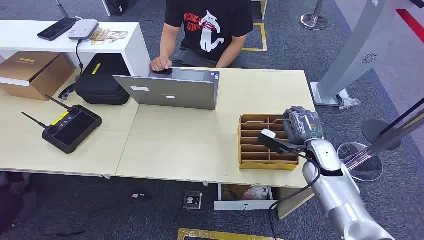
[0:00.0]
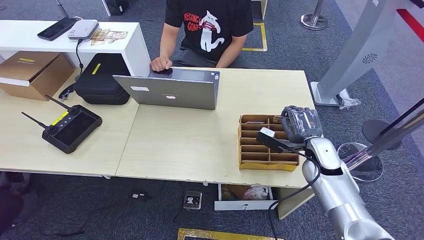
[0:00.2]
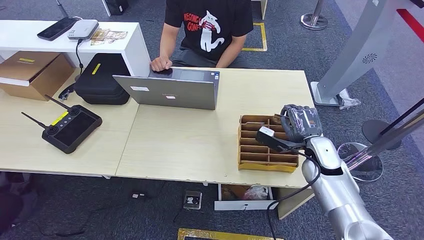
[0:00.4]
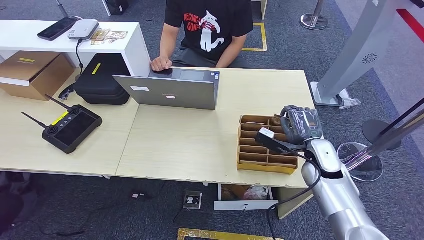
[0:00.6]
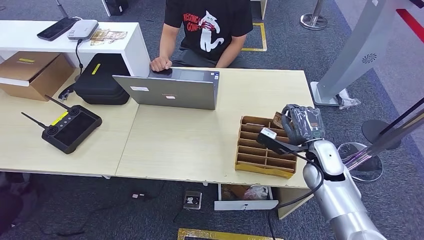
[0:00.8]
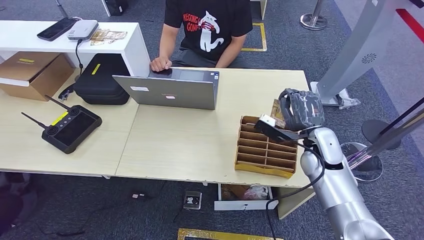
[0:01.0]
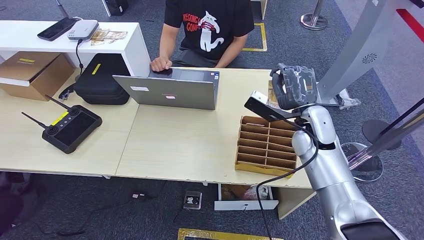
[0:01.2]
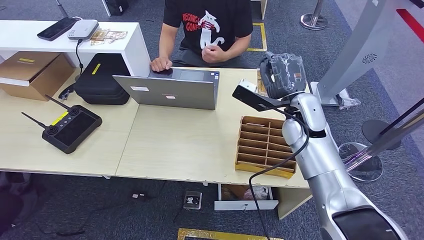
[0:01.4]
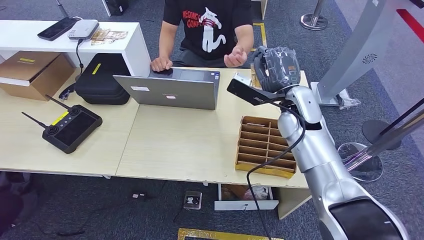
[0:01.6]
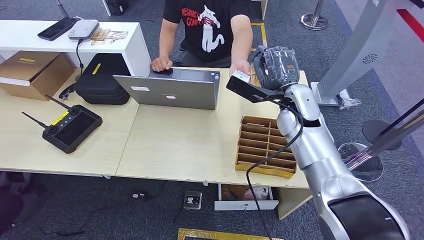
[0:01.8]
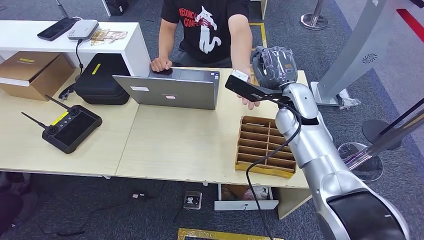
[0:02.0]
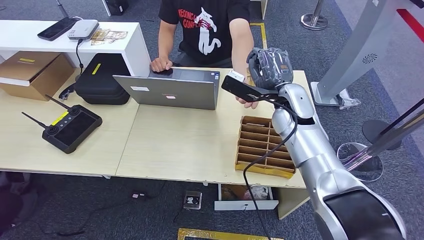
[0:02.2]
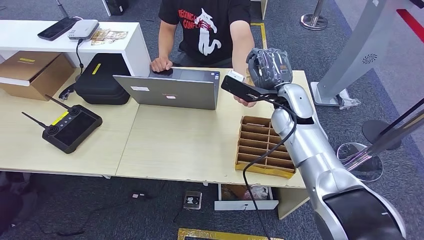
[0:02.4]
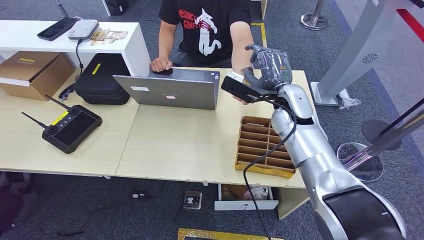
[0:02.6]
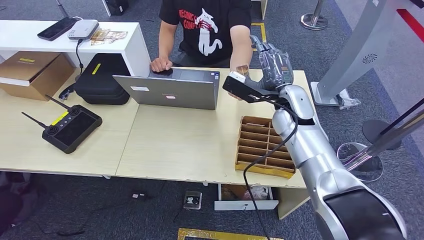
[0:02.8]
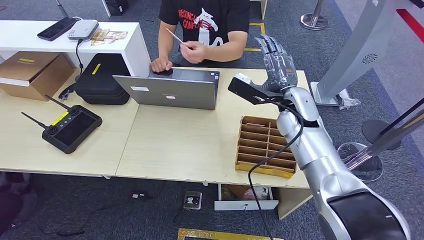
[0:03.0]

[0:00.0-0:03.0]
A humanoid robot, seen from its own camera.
Step, 0:00.0 to 0:01.4: Pick up the room card from the card holder.
Step, 0:01.6 to 0:03.0: Hand the room card to the target.
0:01.6 to 0:03.0: The right hand heads to the right, covering roughly 5 cm.
